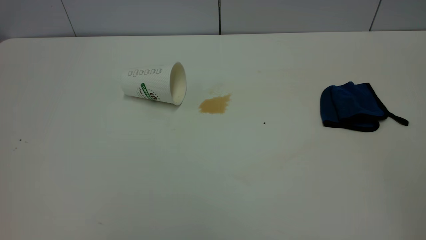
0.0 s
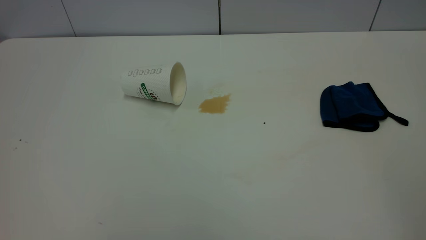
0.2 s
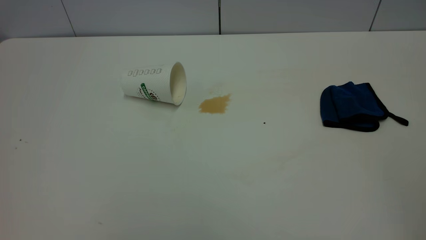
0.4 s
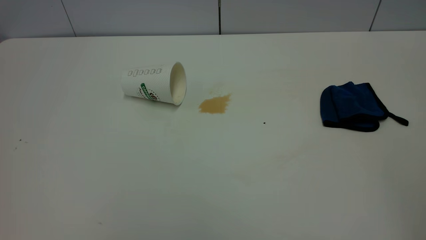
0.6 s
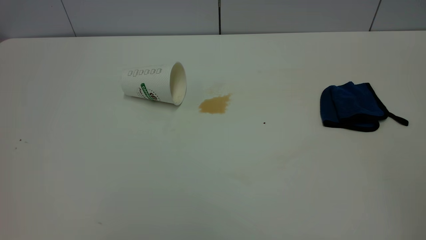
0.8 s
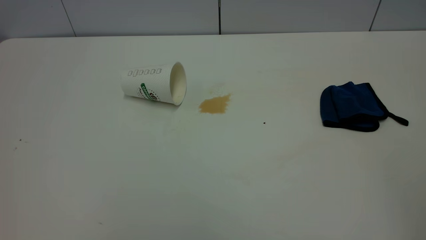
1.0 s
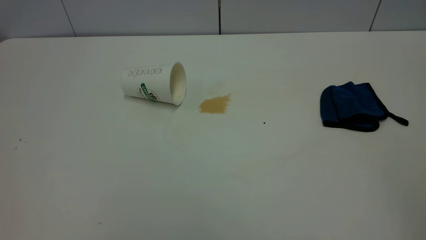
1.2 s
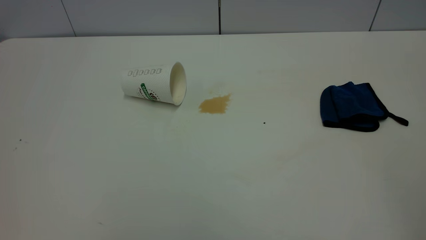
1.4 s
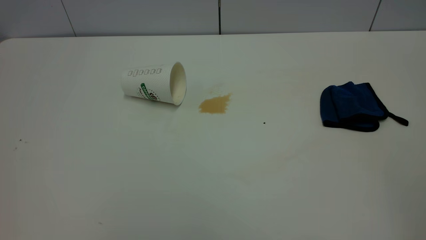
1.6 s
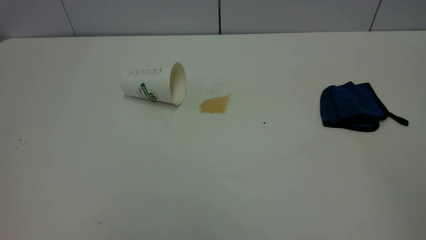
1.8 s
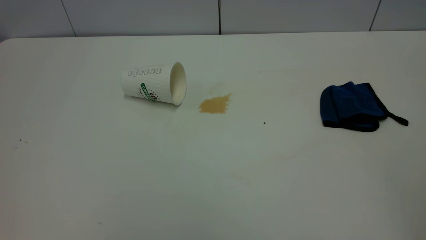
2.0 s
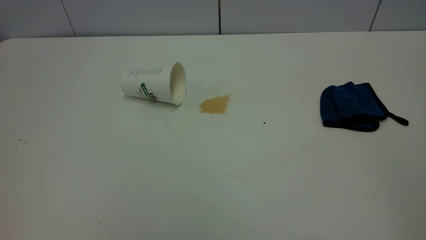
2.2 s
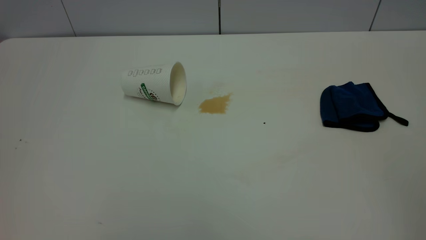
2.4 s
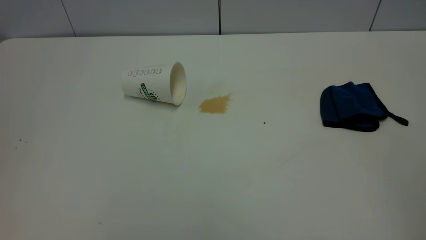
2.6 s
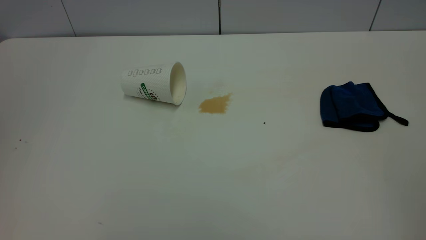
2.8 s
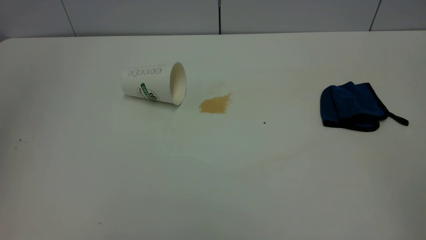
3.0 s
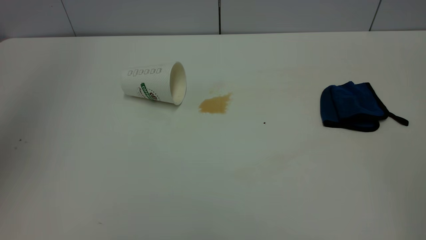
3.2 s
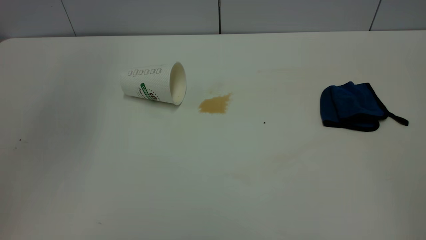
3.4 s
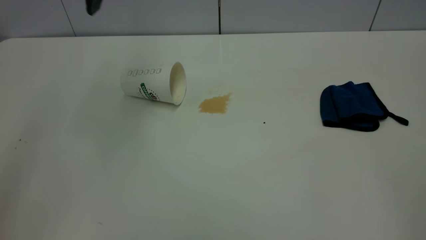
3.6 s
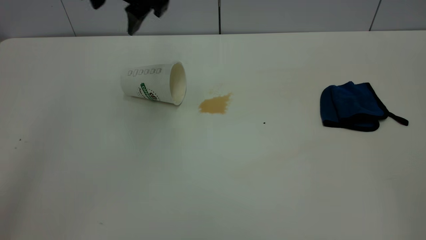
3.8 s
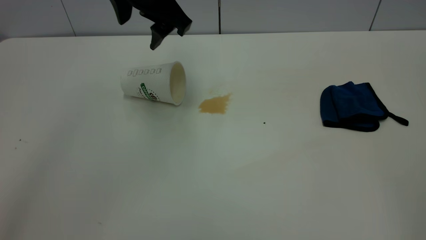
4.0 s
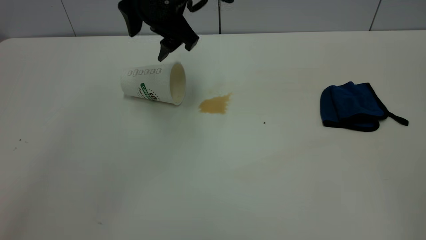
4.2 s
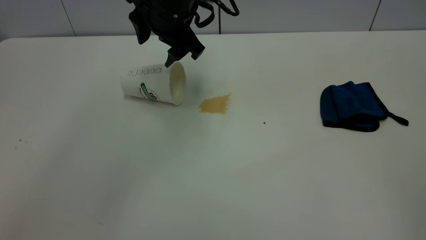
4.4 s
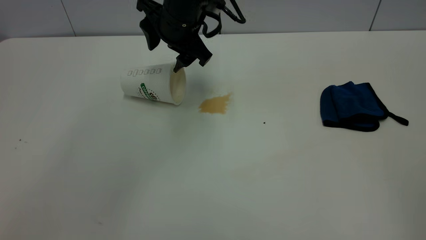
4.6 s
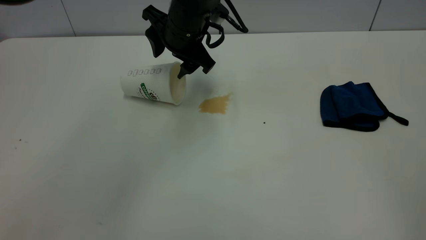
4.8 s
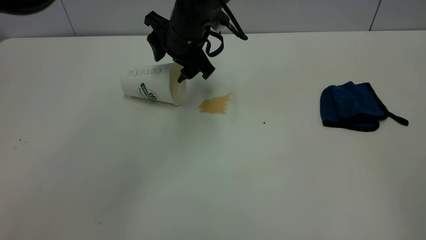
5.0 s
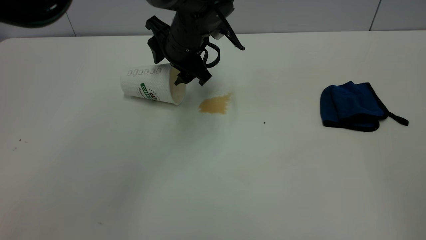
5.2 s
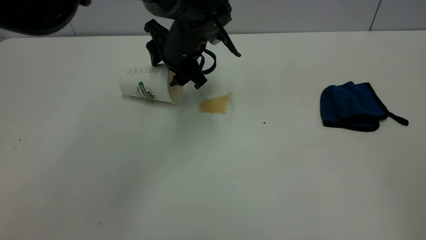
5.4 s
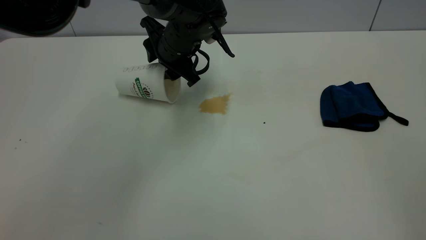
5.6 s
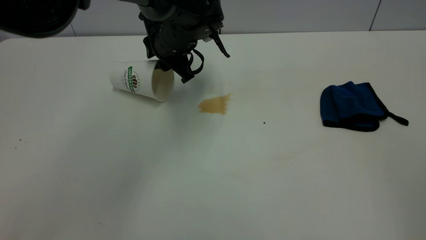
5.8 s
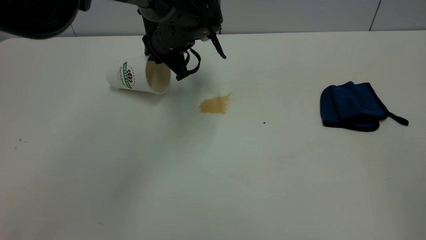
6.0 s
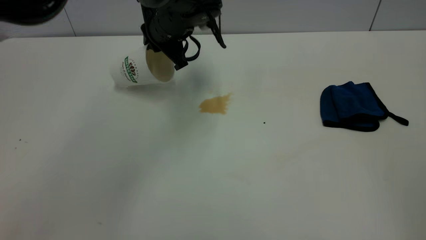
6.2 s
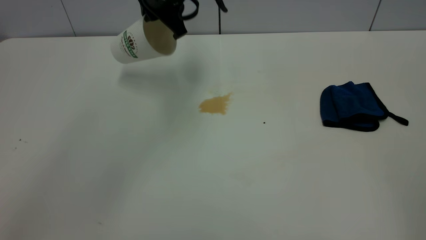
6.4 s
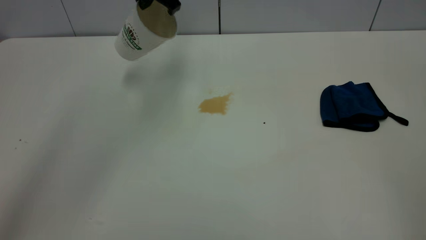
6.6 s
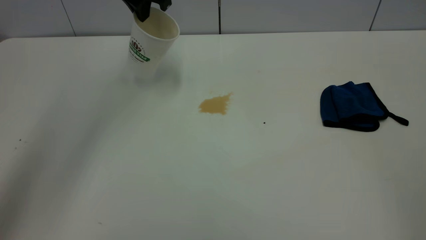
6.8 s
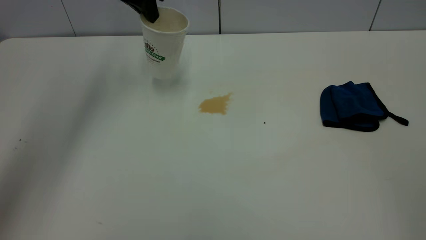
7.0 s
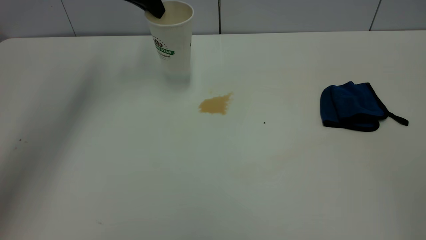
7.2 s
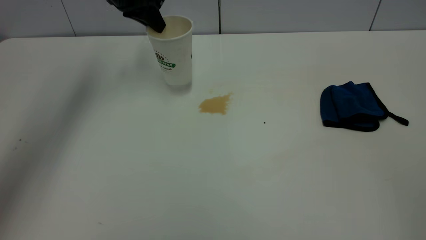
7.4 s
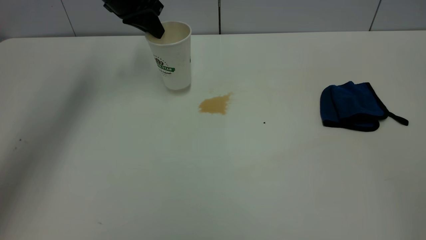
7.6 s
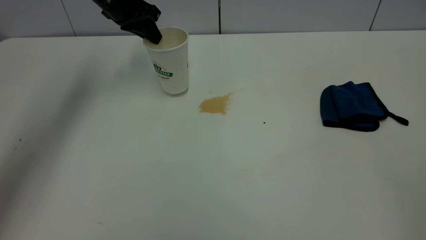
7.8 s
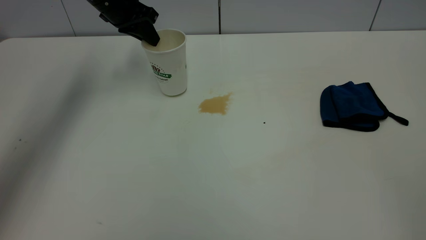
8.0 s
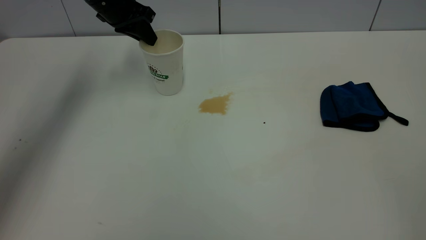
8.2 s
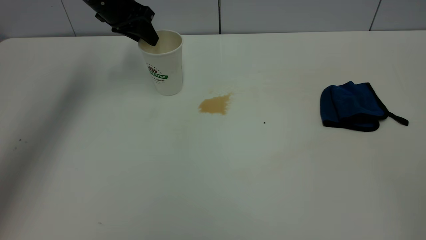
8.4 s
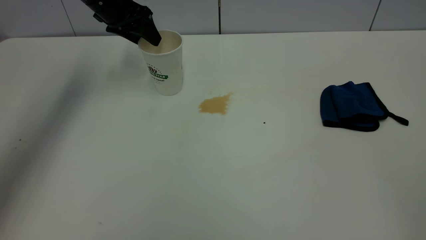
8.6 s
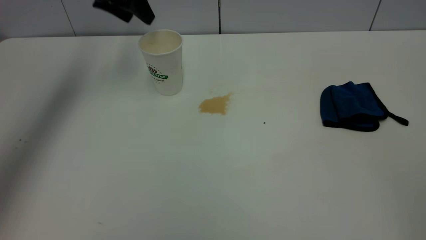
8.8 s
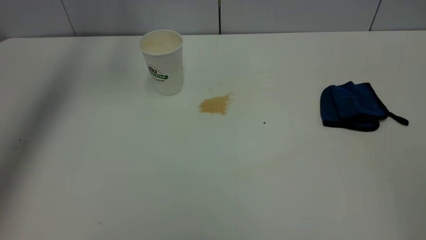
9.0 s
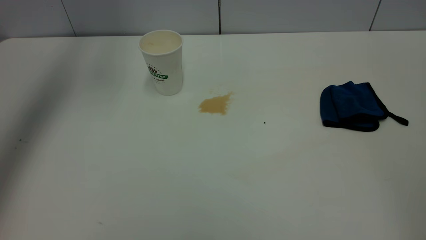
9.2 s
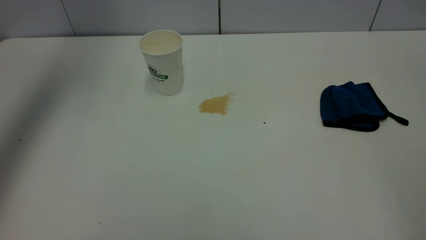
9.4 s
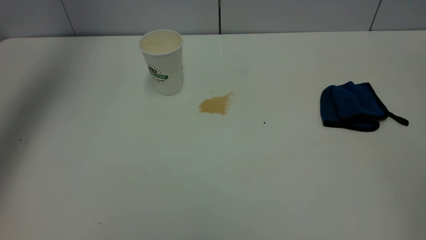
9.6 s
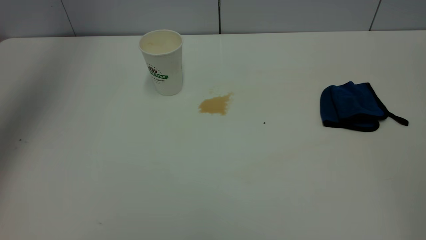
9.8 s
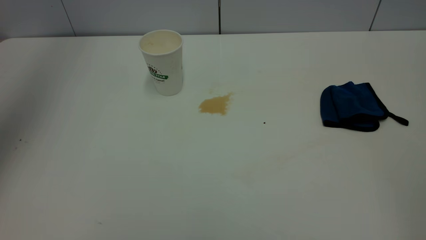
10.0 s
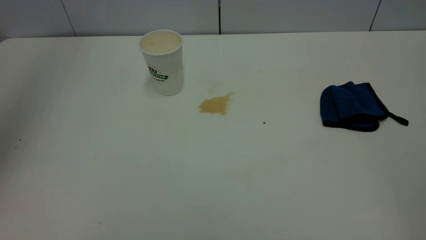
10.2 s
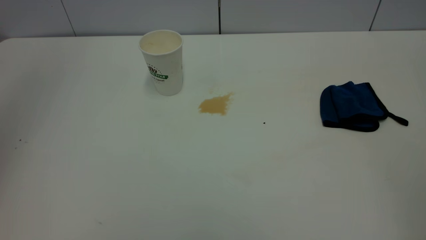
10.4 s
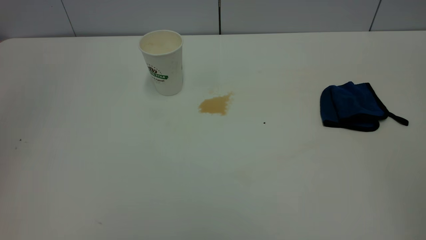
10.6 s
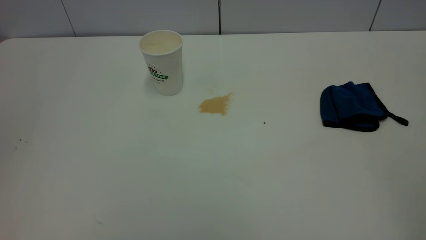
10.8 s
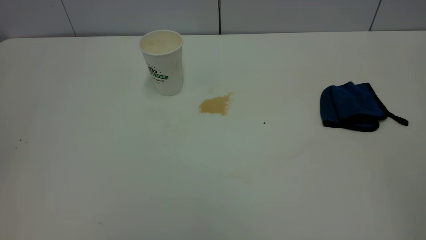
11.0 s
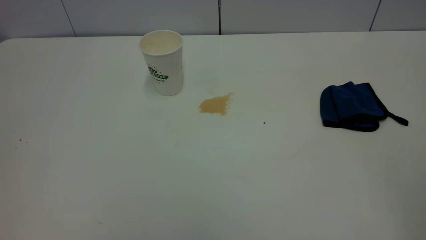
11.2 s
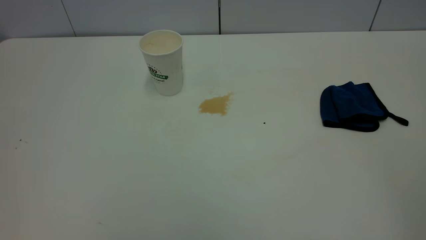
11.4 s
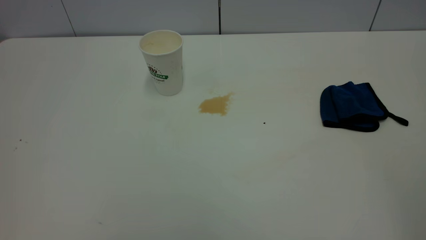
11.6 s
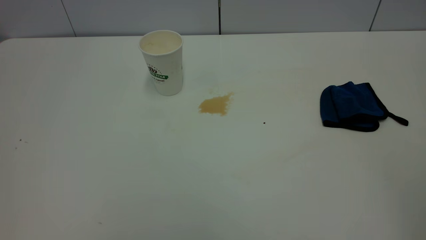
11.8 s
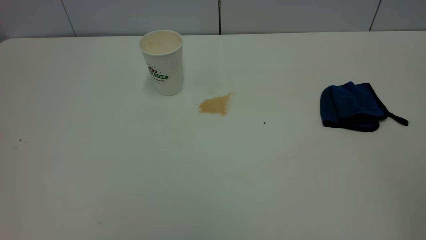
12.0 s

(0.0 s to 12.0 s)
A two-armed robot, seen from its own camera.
Task of the whole recording: the left gripper pick up the fallen cup and place it upright, the right gripper grasp the blue rag and wipe the tea stain on the table, the right gripper put the blue rag back in its original position.
Step, 0.0 s - 8.6 s: Stand the paper cup upright.
0.0 s - 1.6 s: The two grippers keep their place.
3.0 s - 4.4 s: The left gripper is displaced to the right, forward and downward by some 40 cm.
4.4 s - 6.0 s: The left gripper shifts approximately 5 cm downward, and closes.
6.0 s - 7.6 s: The left gripper travels to the left, upward and forward by approximately 15 cm.
7.6 s - 9.0 s: The left gripper travels upward by about 10 cm, and opens up.
9.0 s - 10.4 s: The left gripper goes about 30 cm backward, and closes its fingers.

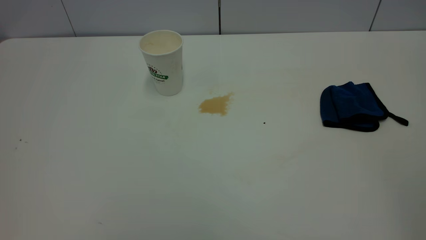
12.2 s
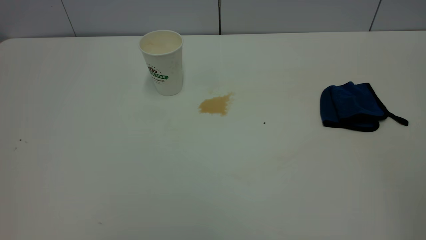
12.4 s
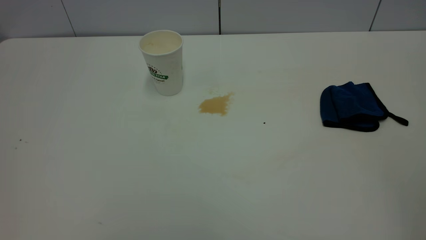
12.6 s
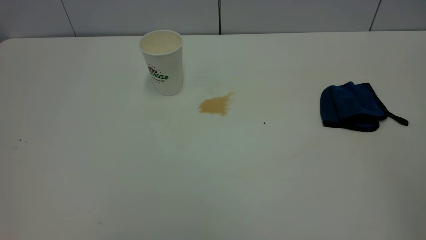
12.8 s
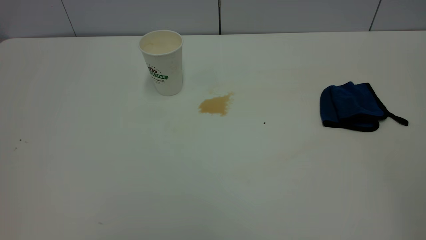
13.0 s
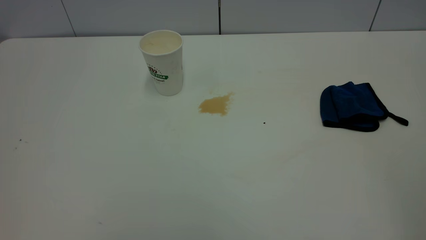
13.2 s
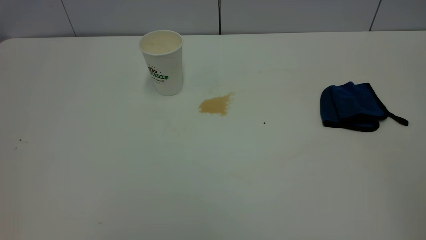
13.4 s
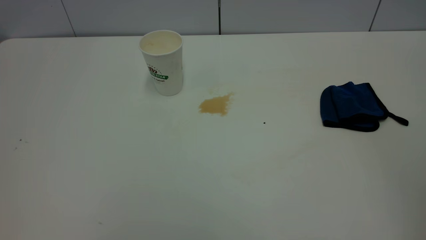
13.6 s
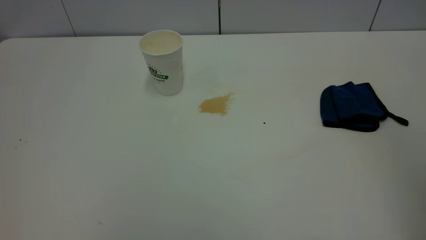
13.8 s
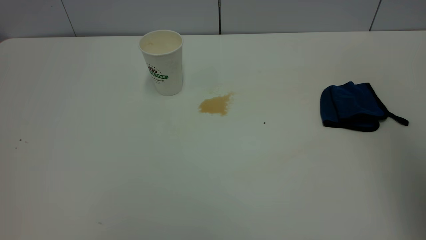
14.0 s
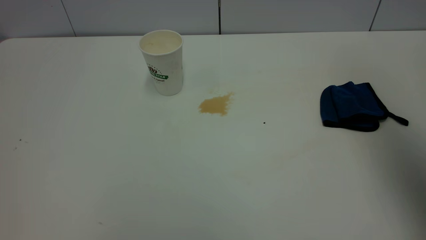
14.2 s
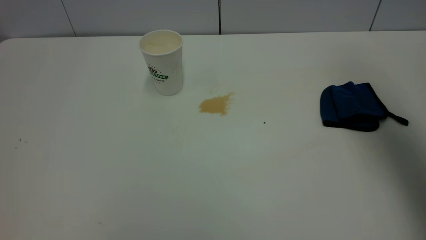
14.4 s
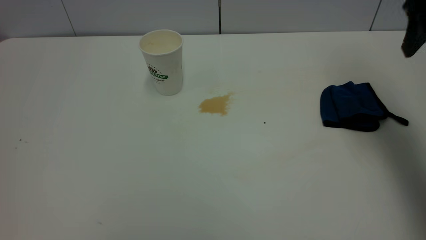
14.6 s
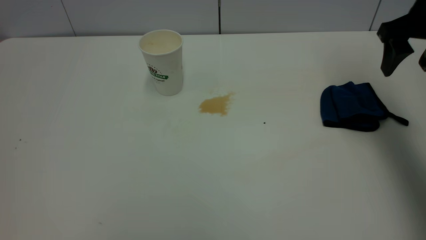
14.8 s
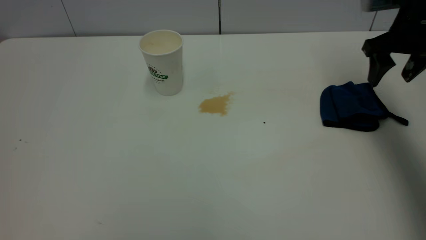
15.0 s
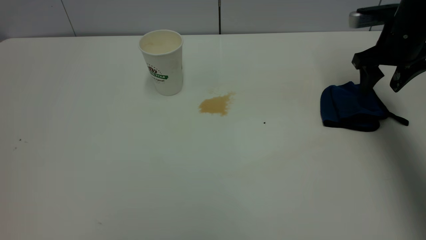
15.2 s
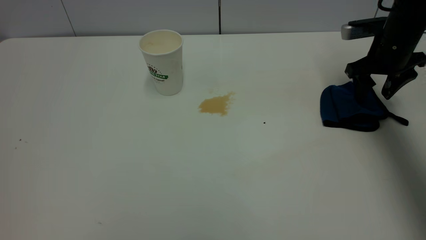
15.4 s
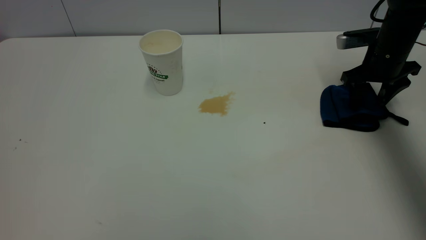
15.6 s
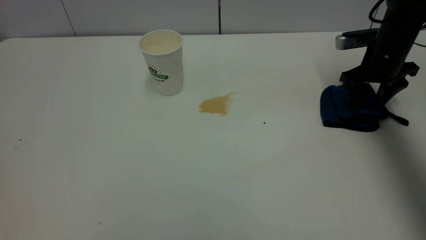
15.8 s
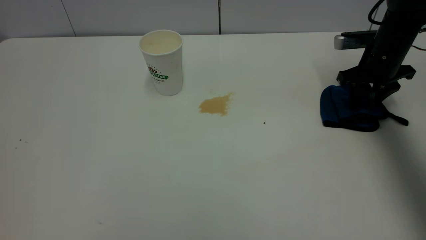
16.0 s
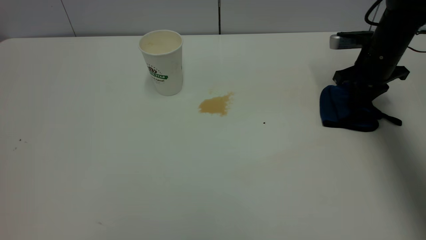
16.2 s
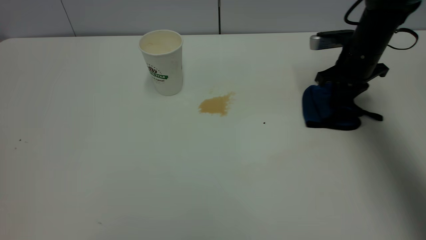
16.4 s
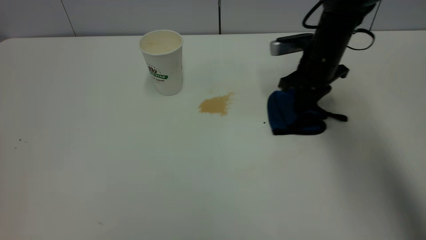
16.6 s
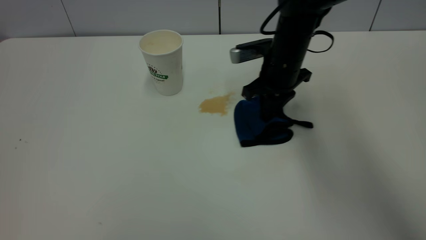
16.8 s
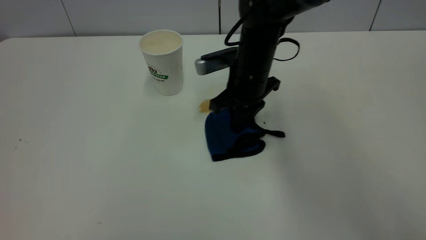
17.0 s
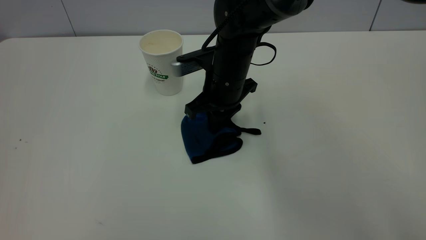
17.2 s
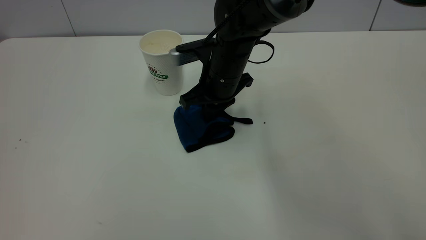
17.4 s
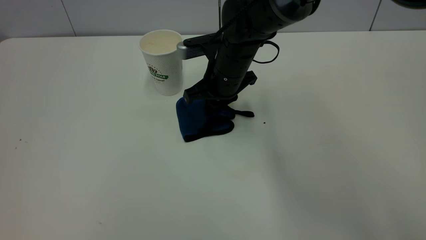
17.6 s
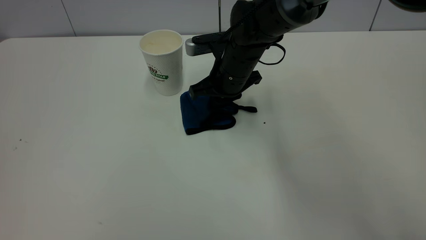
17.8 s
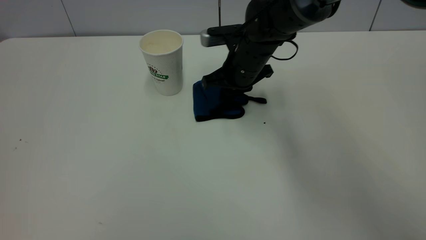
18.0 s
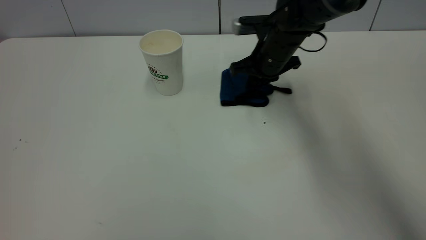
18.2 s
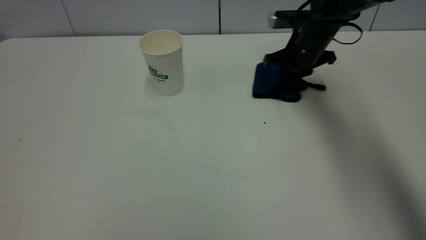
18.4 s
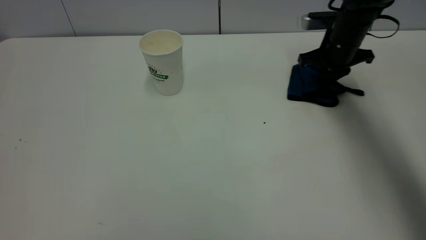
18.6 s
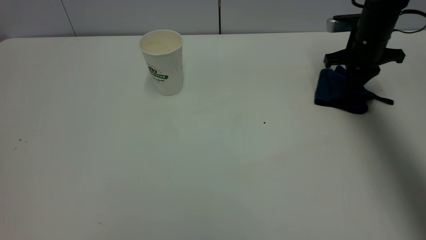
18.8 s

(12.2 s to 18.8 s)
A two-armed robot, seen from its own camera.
Task of the whole recording: the left gripper pick up the fallen cup and place it upright, the right gripper grasp the blue rag and wipe the tea stain on the table, the right gripper put the blue rag back in its original position.
13.8 s - 15.4 s: The right gripper heads forward and downward, covering approximately 50 cm.
15.4 s - 17.2 s: The right gripper goes approximately 30 cm to the left, and closes up.
17.2 s - 18.8 s: The right gripper is displaced to the right by some 25 cm.
